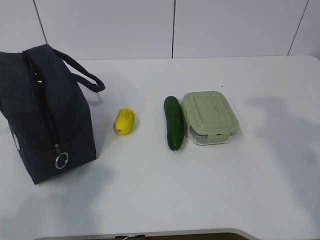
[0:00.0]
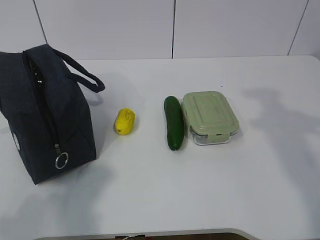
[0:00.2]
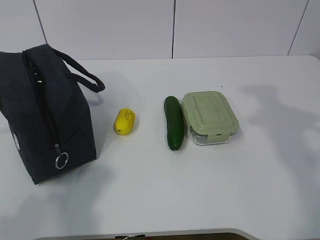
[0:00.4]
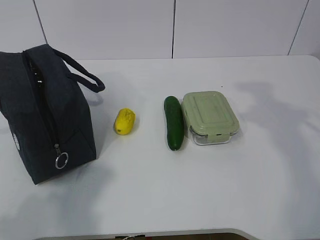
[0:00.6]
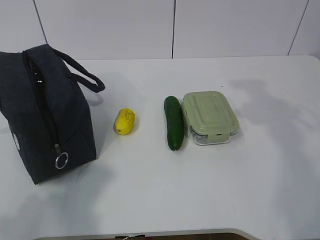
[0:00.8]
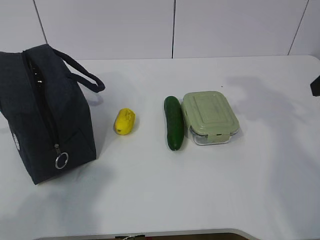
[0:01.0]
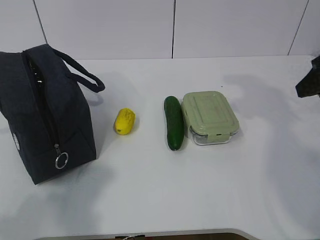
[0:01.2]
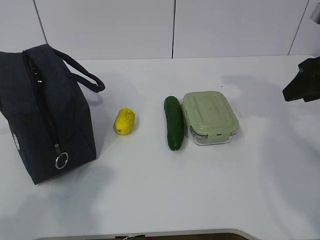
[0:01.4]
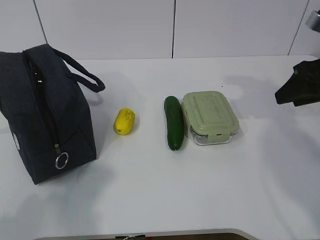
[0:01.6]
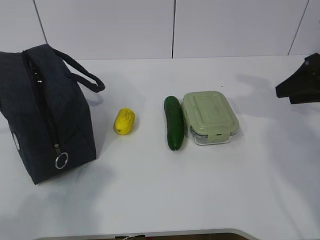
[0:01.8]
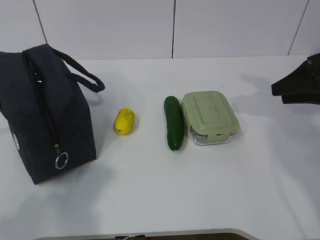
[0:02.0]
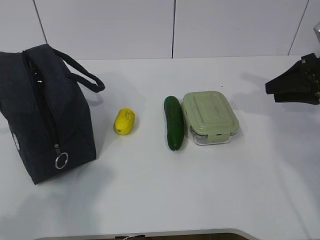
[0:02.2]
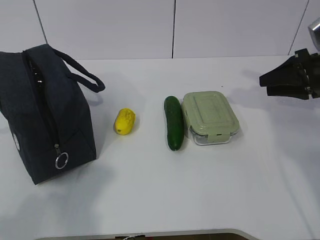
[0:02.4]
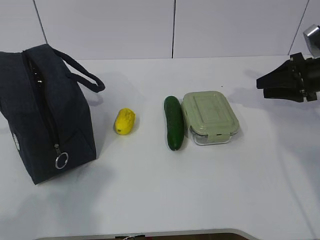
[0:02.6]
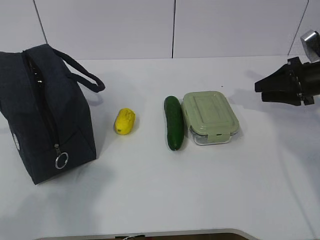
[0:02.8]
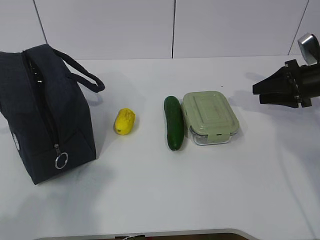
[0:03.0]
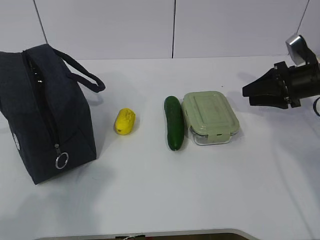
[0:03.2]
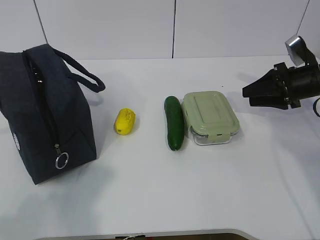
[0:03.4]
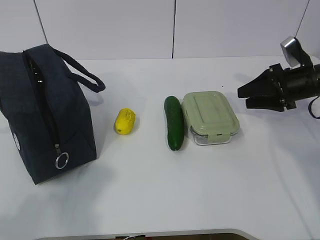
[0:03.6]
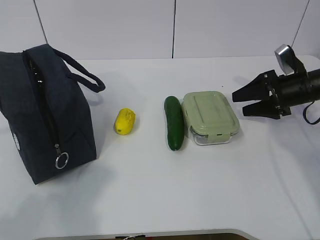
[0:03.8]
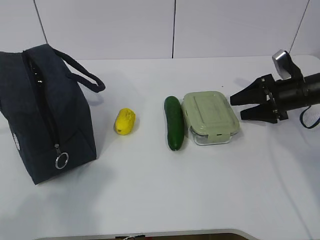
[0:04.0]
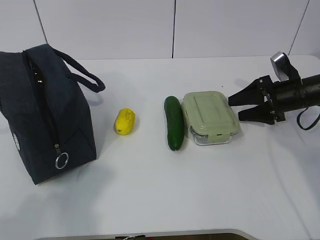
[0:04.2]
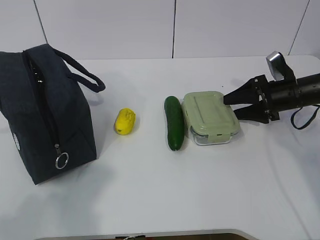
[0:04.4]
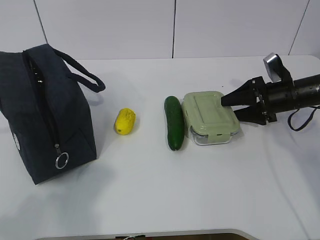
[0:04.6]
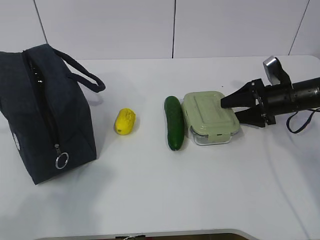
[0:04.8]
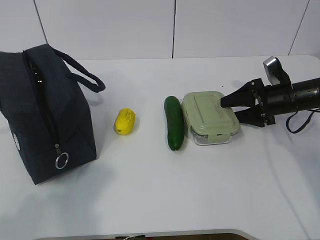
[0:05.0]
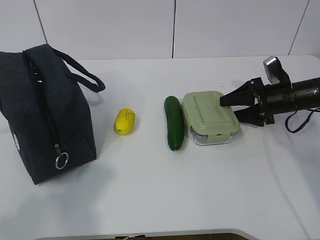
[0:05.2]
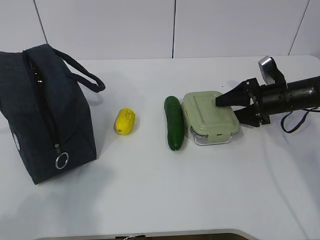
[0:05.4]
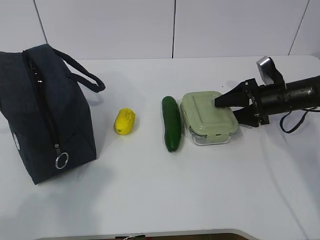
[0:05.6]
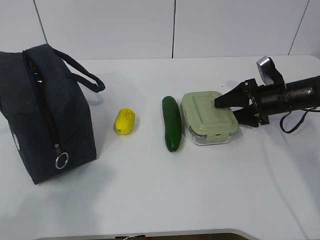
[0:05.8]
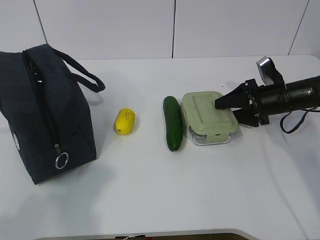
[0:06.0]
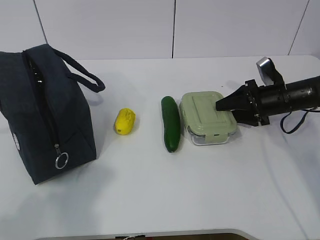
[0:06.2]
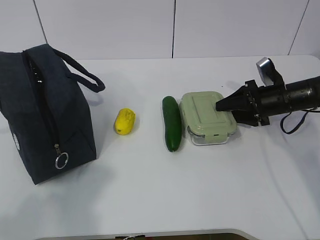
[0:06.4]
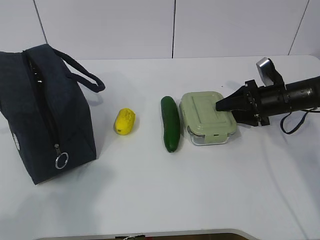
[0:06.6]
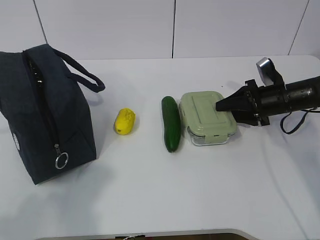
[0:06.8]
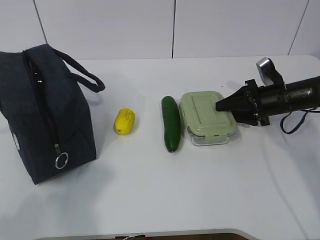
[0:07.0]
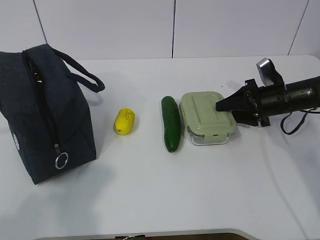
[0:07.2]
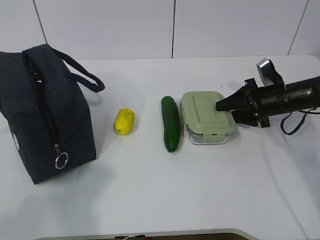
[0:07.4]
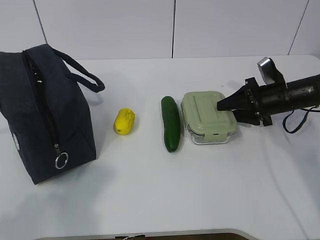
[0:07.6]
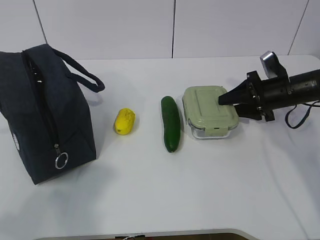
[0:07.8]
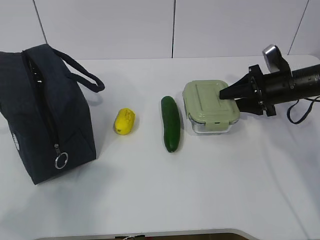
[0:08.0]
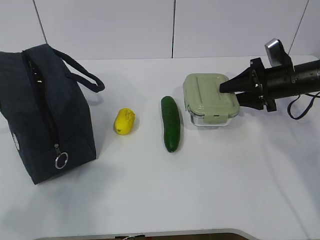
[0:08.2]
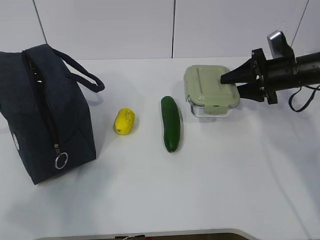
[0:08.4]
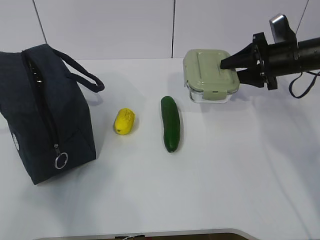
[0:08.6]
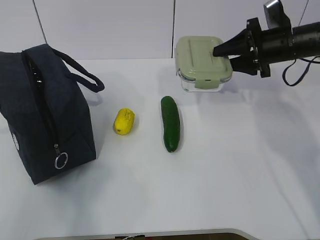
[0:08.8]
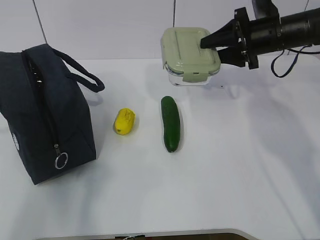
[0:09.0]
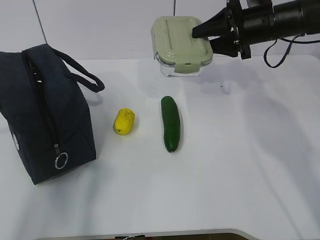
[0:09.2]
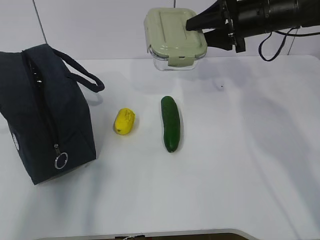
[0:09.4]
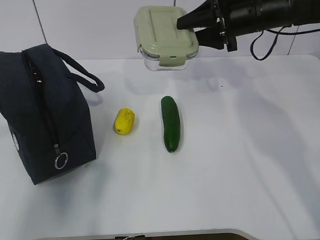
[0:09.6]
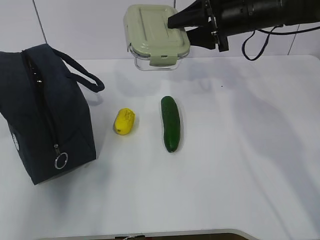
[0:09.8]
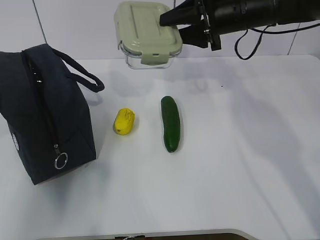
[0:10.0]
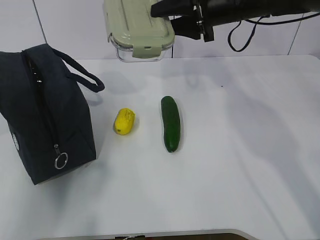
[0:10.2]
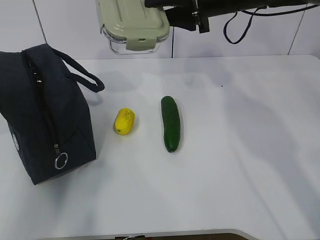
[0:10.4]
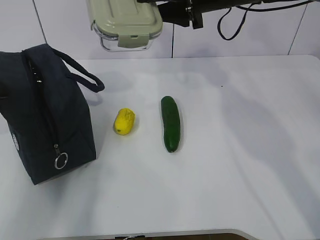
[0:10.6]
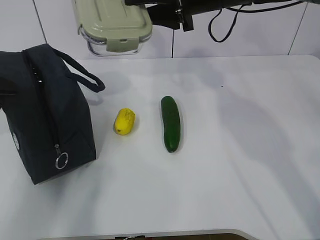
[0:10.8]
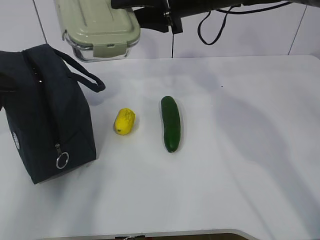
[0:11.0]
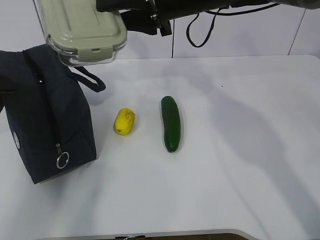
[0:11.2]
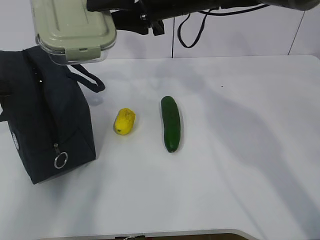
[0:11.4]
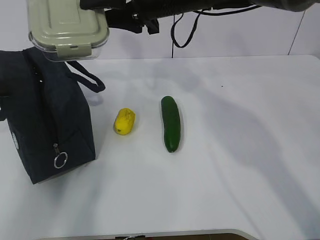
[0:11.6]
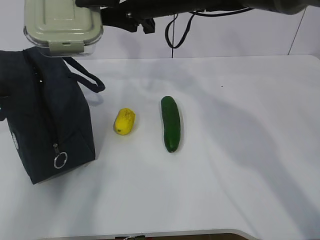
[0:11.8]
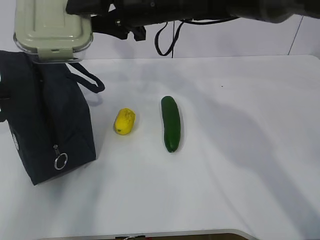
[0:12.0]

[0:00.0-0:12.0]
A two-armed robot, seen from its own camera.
Step, 0:00.0 to 0:04.4: Grab the lunch box with your right hand.
Step, 0:04.6 to 0:09.8: Grab the lunch bag with your left hand.
Step, 0:10.0 to 0:12.0: Place it into the bag with your right hand.
0:00.0 to 0:01.6: The right gripper shifts about 20 cm forward and downward.
0:01.6 to 0:03.0: The right gripper heads downward and forward, covering some 10 cm.
0:03.0 to 0:04.4: The right gripper changes place by some 5 cm.
0:04.4 to 0:06.0: The grippers stay close to where they were, moving slightly.
0:06.0 to 0:07.6: The two grippers keep their place.
0:07.6 to 0:09.0: The right gripper heads upward, covering about 10 cm, while the left gripper heads upward and forward, covering about 10 cm.
0:09.0 to 0:10.4: The right gripper goes about 10 cm to the left and upward; the left gripper moves forward, roughly 15 cm.
0:10.4 to 0:12.0: The right gripper goes roughly 10 cm to the left. The left gripper closes up.

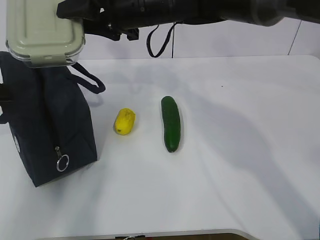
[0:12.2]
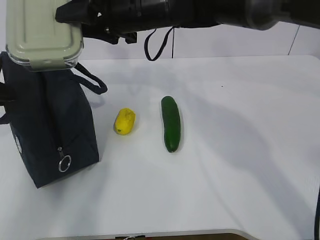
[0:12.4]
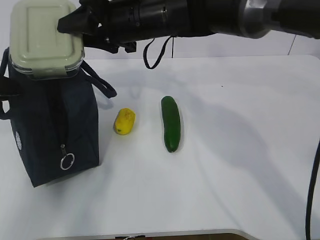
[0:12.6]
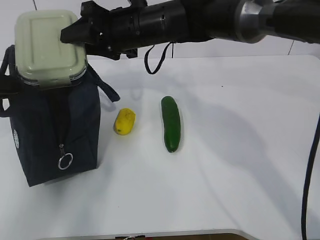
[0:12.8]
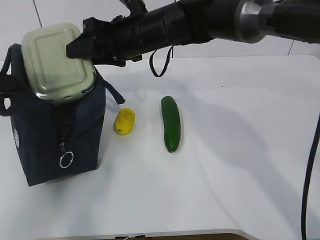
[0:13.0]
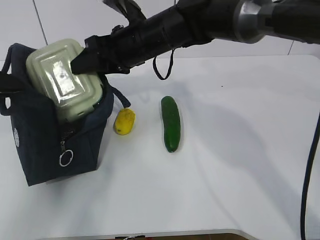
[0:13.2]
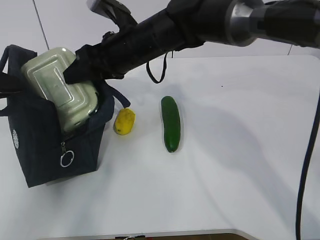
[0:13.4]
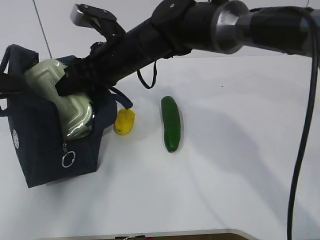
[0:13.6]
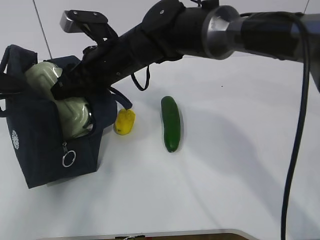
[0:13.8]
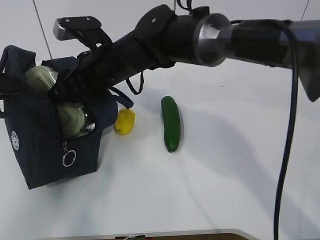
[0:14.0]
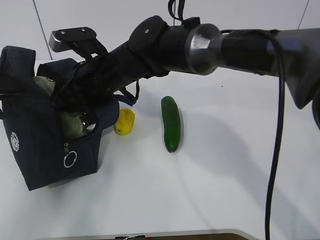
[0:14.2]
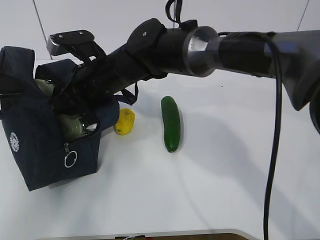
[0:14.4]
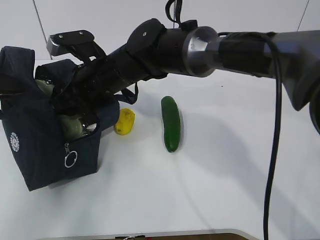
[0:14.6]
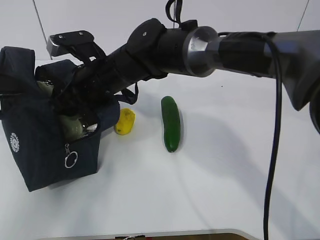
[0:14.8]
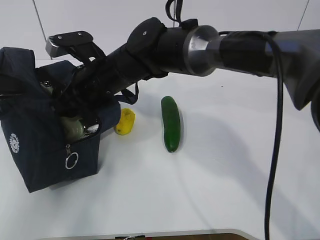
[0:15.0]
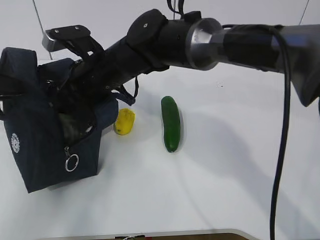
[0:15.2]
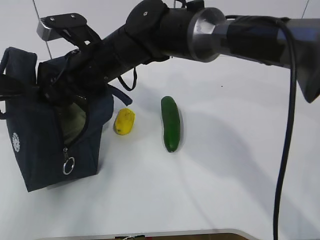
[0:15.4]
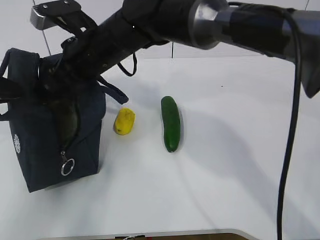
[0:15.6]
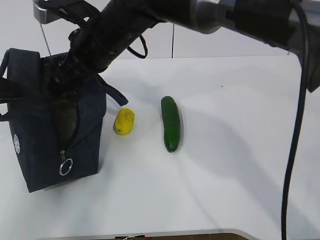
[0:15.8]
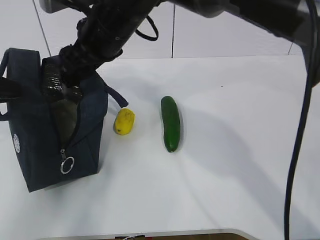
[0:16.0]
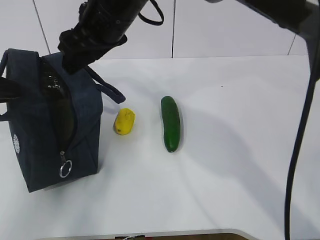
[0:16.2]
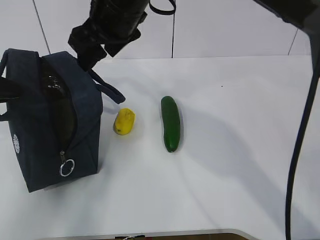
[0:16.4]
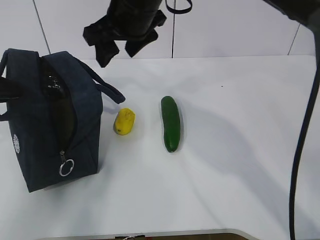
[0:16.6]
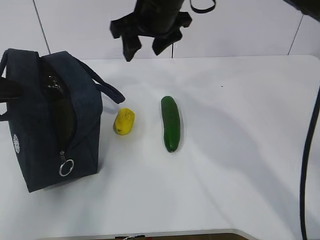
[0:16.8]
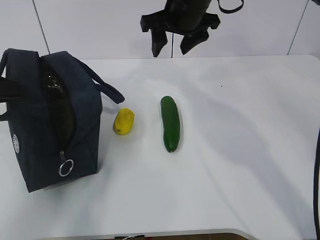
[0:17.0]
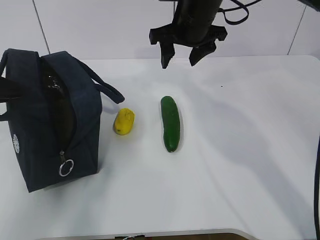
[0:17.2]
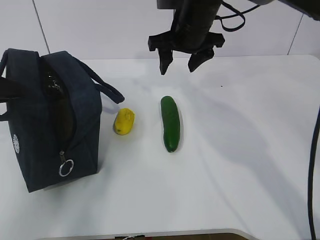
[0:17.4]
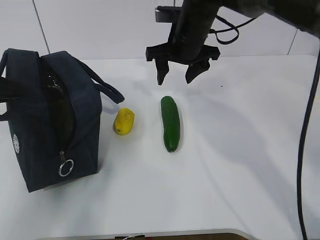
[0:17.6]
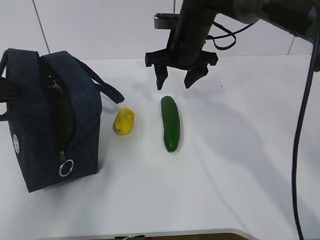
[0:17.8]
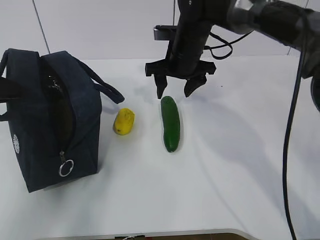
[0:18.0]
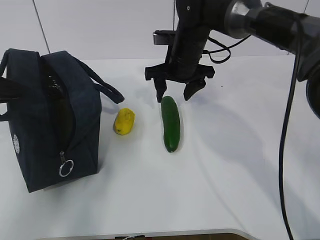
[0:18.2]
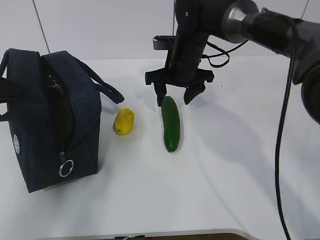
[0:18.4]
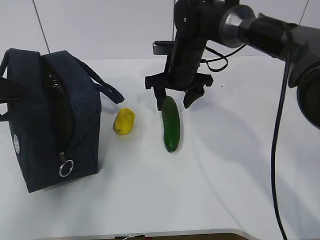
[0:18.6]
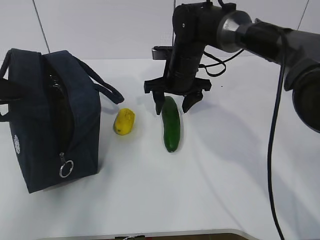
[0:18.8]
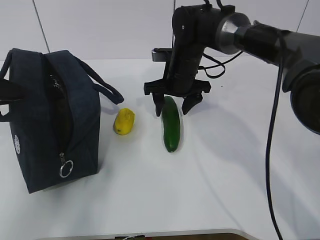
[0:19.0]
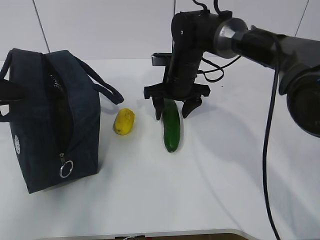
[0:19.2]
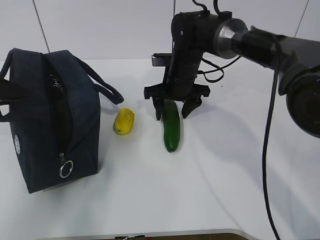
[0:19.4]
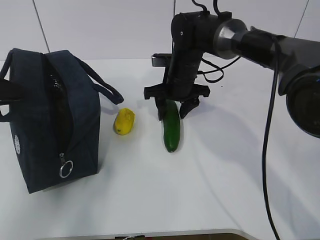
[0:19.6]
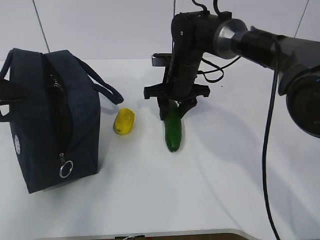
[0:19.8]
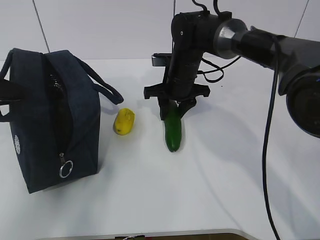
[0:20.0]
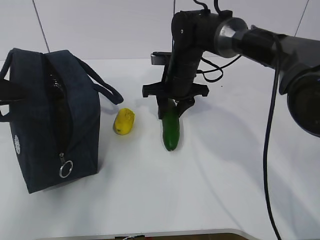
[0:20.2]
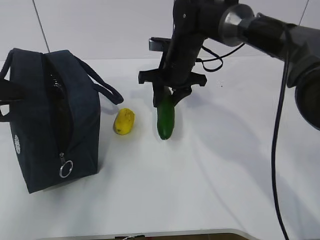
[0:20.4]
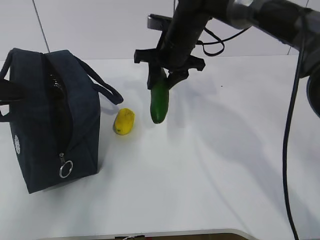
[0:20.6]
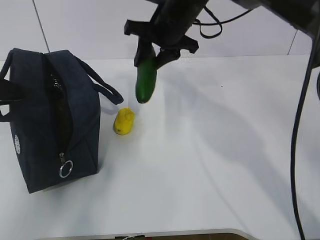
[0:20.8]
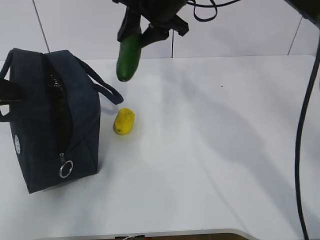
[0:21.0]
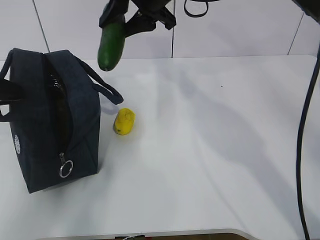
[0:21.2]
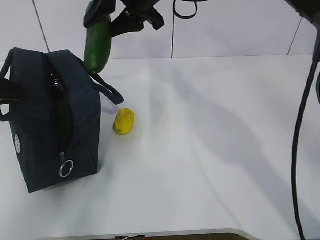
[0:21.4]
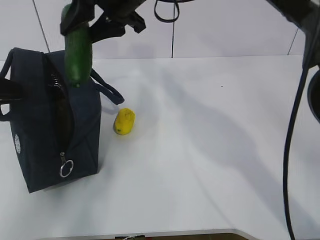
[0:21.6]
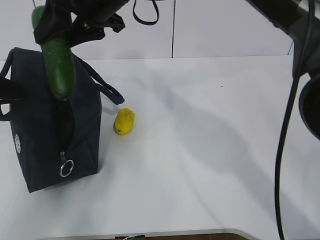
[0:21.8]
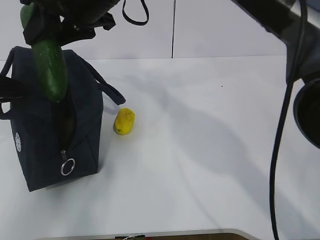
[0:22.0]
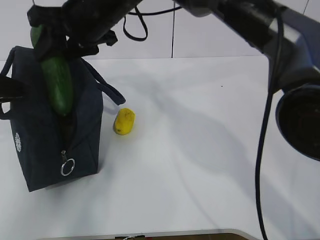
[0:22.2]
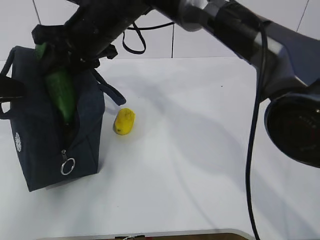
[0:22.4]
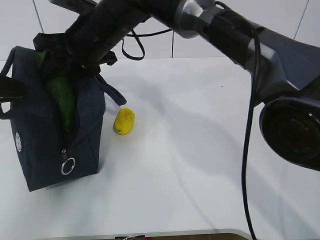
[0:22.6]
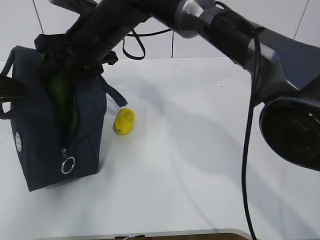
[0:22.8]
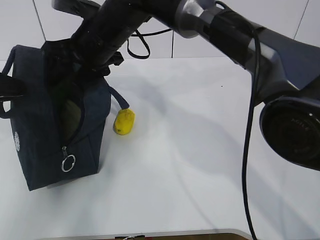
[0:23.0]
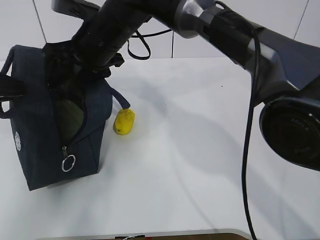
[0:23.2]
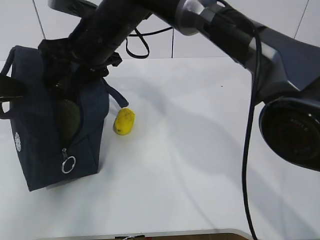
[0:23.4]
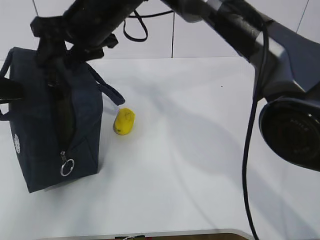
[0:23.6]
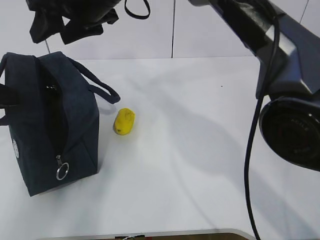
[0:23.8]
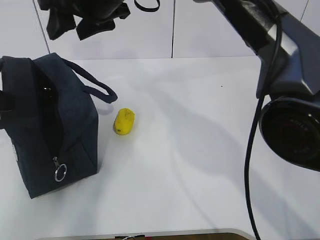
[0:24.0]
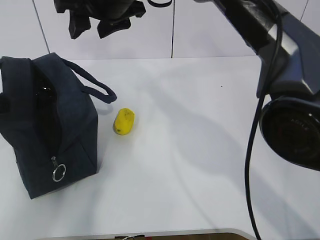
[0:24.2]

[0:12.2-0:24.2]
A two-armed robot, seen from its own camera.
Step, 0:12.2 to 0:15.6: Grab the cucumber with your right hand.
Step, 0:16.0 to 0:18.4: Place it into the bag with your right hand.
Step, 0:18.6 to 0:23.8: Grab the lemon with your right hand.
0:12.2 to 0:13.8: The right gripper is displaced downward by roughly 5 cm.
0:15.2 to 0:16.6: The right gripper moves upward and to the right, roughly 10 cm.
0:16.6 to 0:18.2: The right gripper moves downward, to the right and forward, some 15 cm.
0:18.2 to 0:19.8: The grippers make only small movements.
0:19.8 to 0:21.2: The right gripper travels upward by roughly 15 cm.
0:21.2 to 0:22.6: The right gripper is displaced to the left and downward by about 10 cm.
0:22.6 to 0:24.2: The right gripper travels upward by about 5 cm.
